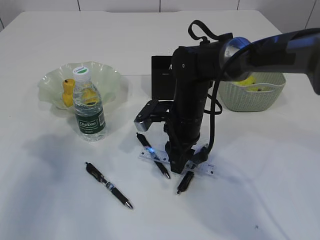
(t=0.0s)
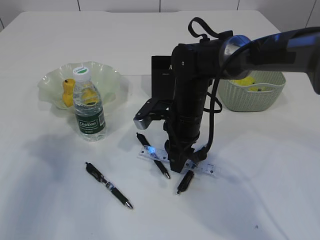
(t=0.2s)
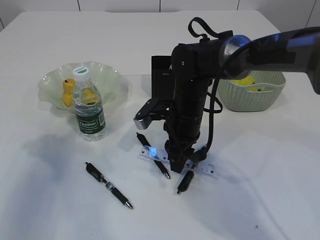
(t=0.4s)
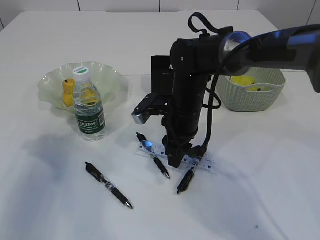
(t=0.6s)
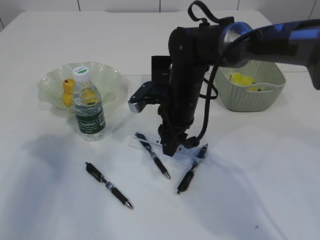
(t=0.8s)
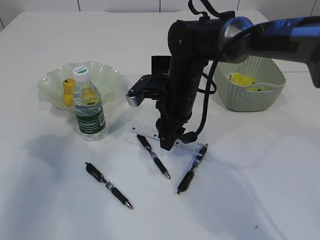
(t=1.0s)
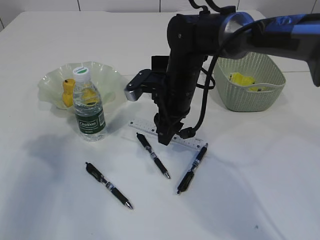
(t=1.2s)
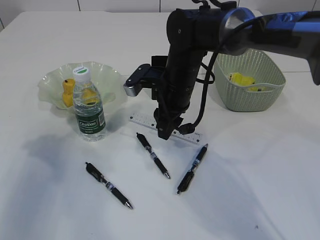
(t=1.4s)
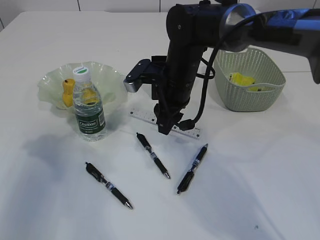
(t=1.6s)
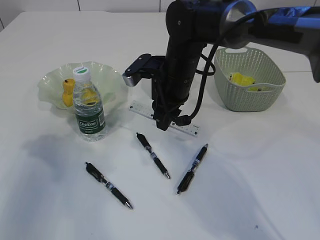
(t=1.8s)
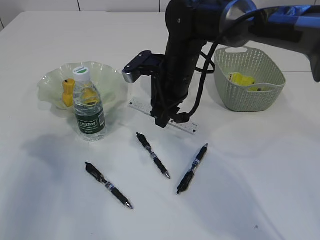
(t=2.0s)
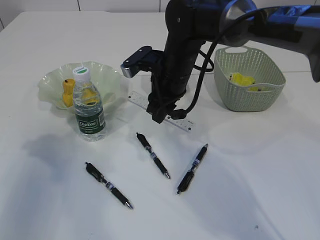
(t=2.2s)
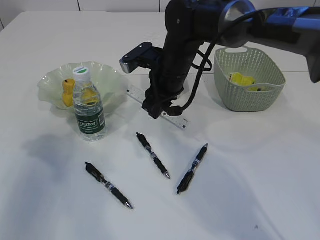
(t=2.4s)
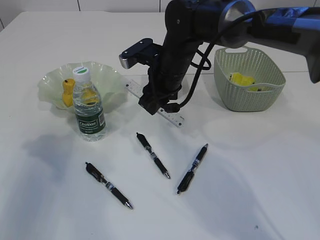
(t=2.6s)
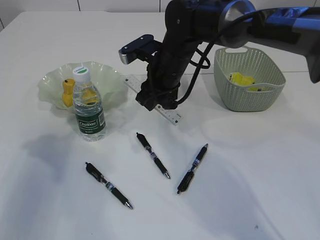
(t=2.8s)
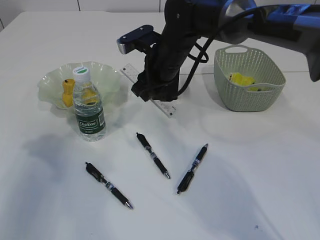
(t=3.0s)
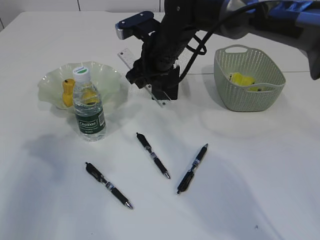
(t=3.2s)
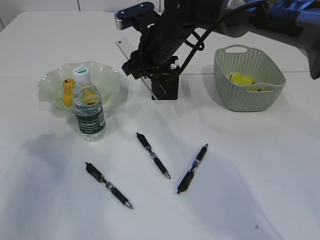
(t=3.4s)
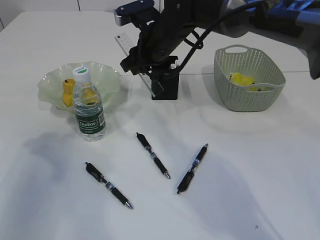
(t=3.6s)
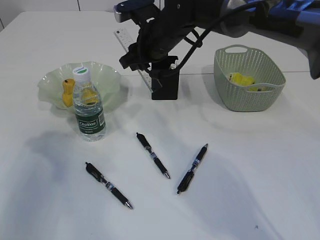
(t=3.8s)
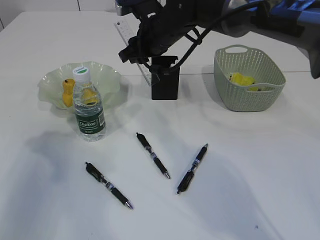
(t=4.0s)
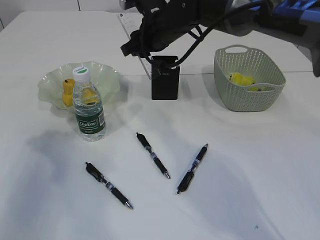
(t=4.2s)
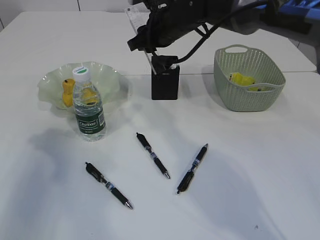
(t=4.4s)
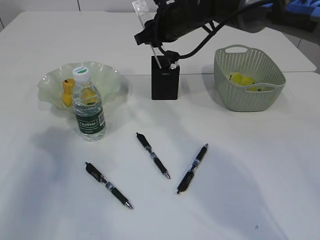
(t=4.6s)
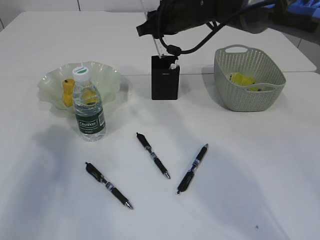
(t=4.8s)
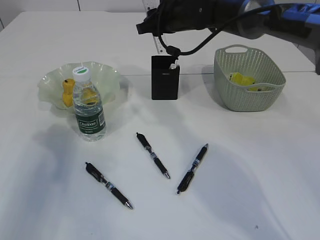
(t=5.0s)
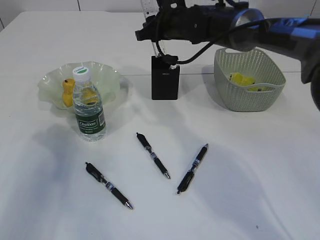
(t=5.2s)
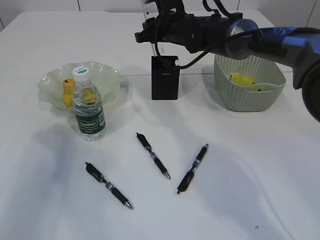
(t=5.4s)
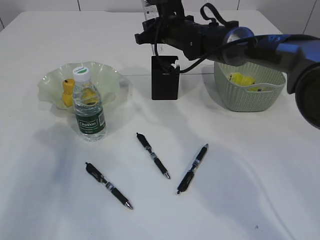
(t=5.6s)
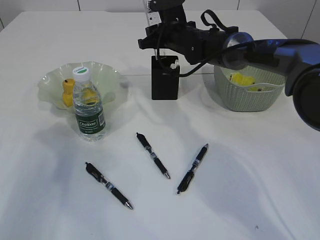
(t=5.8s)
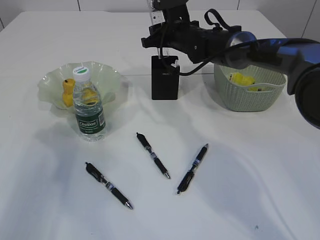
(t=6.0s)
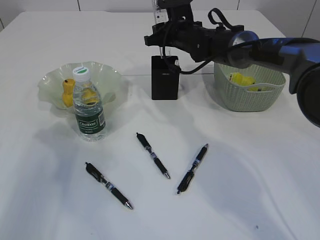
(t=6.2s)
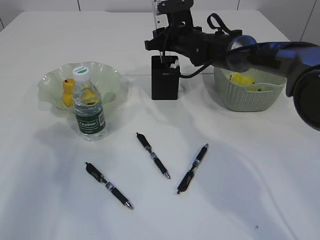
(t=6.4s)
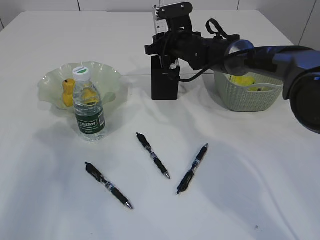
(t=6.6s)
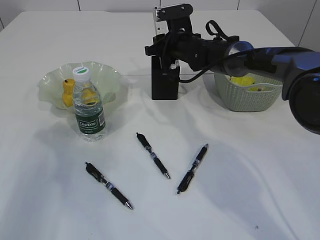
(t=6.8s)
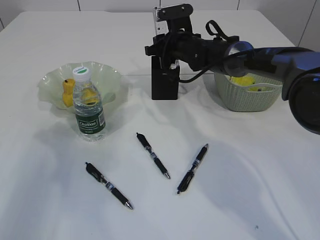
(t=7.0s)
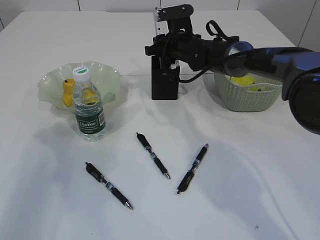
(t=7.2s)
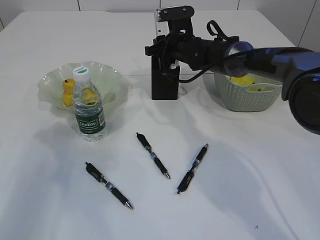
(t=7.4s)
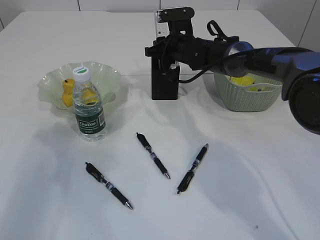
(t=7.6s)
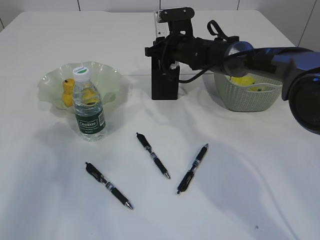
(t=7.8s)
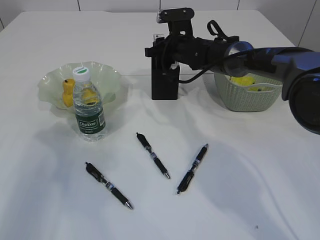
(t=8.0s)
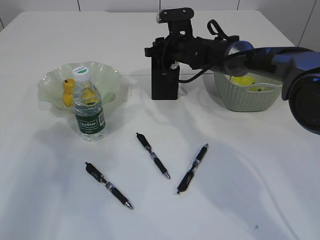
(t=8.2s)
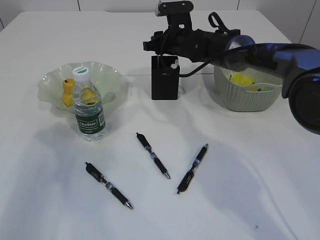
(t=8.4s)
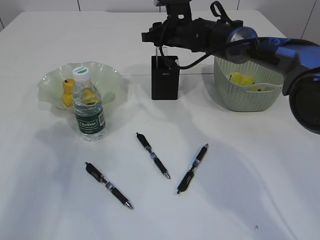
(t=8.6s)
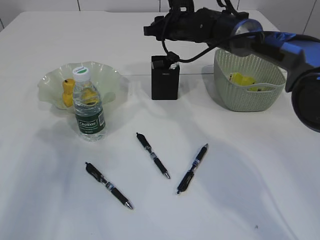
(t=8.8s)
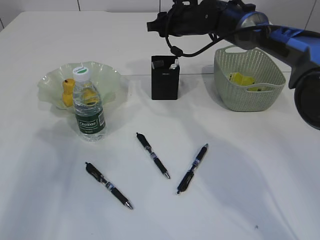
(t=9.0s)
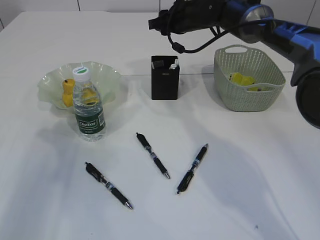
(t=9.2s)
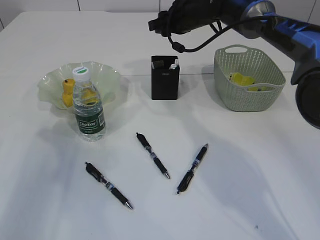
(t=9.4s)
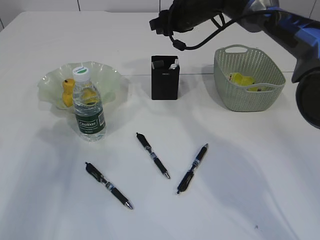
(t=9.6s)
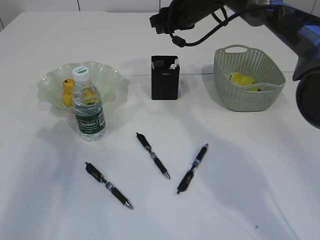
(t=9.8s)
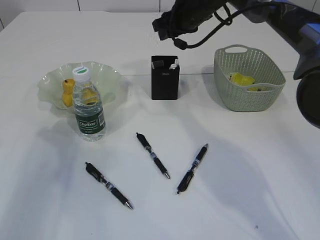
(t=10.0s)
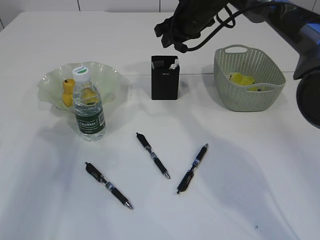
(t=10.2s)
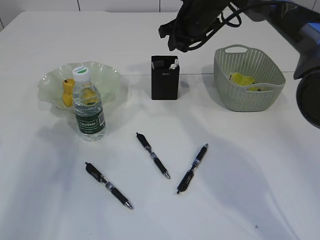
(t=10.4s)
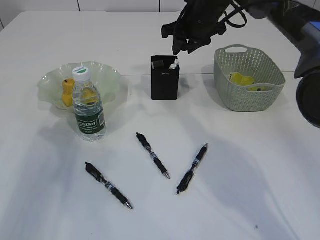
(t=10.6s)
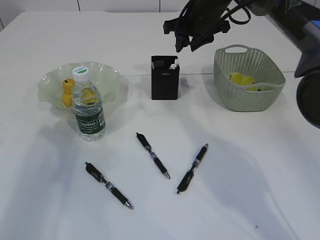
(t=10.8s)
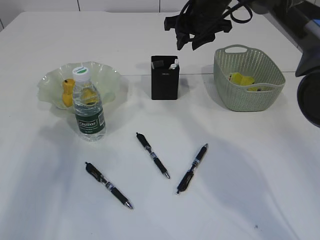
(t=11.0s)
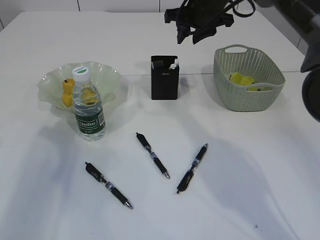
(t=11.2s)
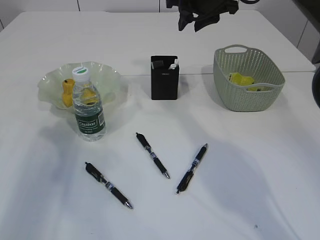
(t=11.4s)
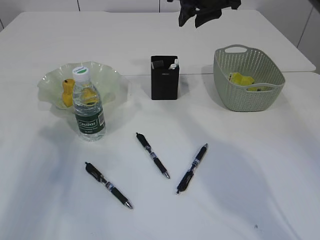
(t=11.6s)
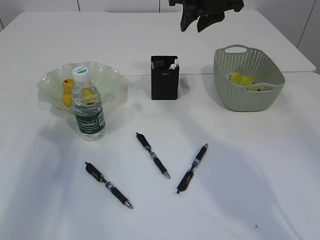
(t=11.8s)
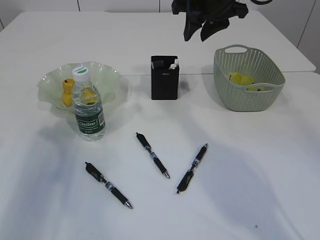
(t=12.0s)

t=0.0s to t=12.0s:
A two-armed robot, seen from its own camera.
Step, t=1.0s to t=8.6s: Place the ruler into the pen holder.
t=0.0s to t=1.6s: The right gripper travels upward by some 5 cm.
t=3.0s to t=4.4s: The right gripper changes place by roughly 5 cm.
t=4.4s to t=6.0s: The right gripper moves forward and downward, some 10 cm.
t=6.0s to t=7.6s: The grippers move only a little.
t=7.6s to t=9.0s: The right gripper shifts about 5 cm upward.
t=10.4s to t=12.0s: The right gripper is displaced upward and backward by approximately 10 cm.

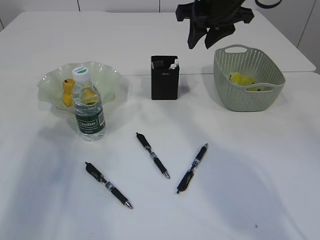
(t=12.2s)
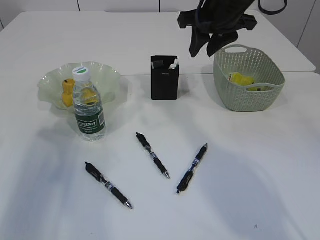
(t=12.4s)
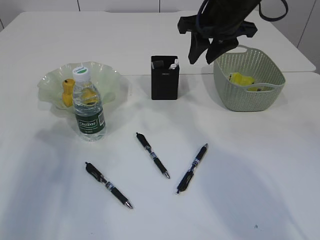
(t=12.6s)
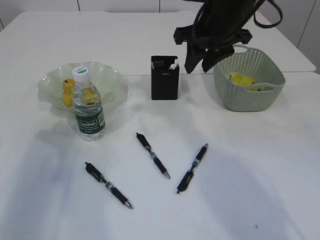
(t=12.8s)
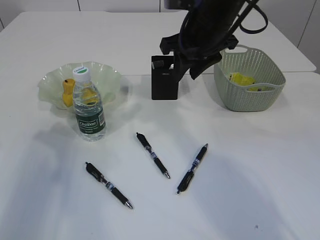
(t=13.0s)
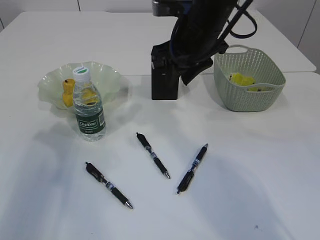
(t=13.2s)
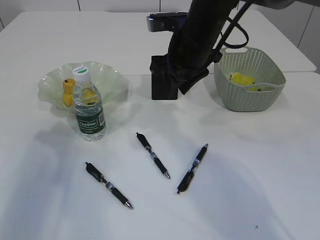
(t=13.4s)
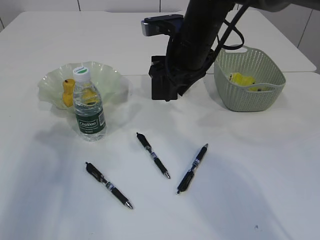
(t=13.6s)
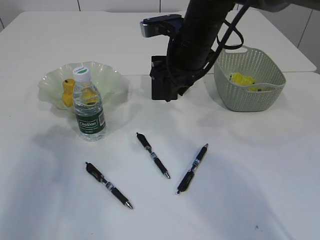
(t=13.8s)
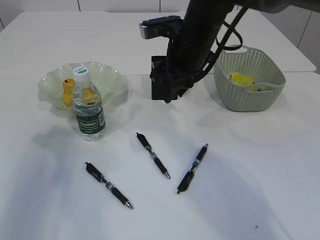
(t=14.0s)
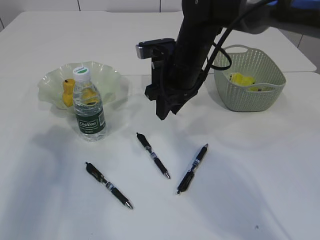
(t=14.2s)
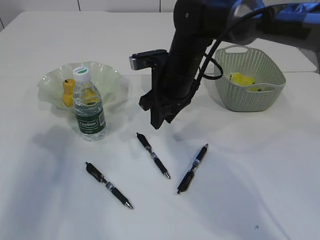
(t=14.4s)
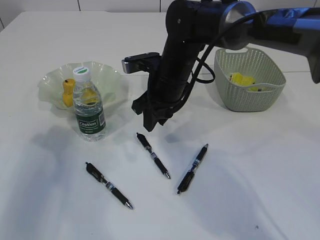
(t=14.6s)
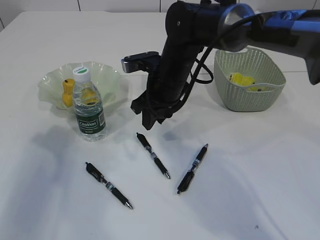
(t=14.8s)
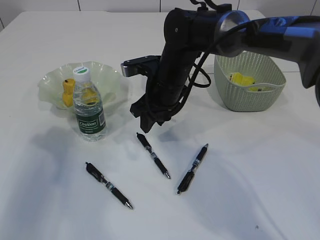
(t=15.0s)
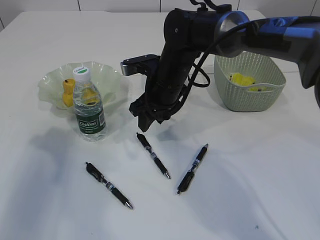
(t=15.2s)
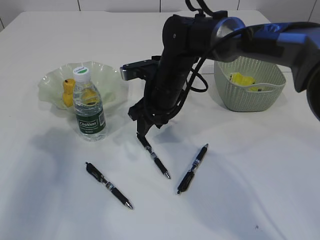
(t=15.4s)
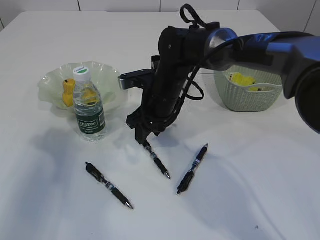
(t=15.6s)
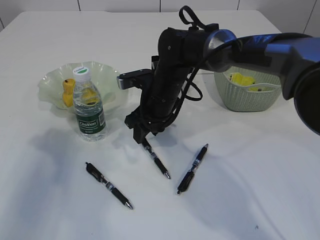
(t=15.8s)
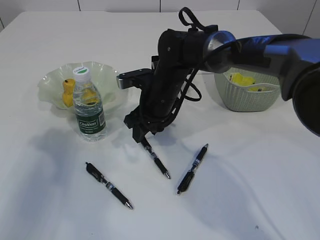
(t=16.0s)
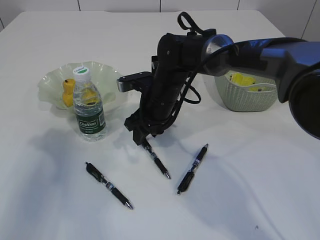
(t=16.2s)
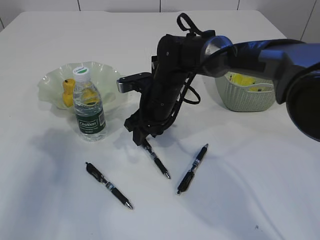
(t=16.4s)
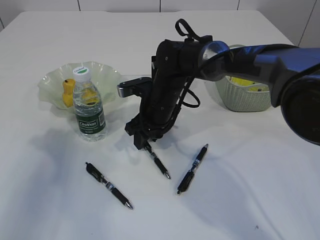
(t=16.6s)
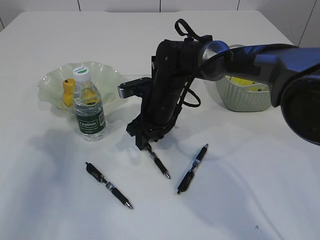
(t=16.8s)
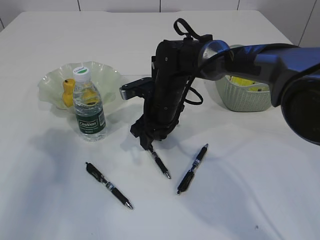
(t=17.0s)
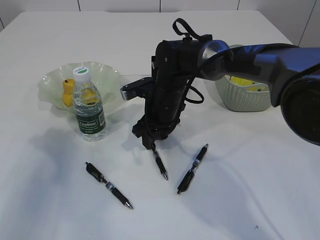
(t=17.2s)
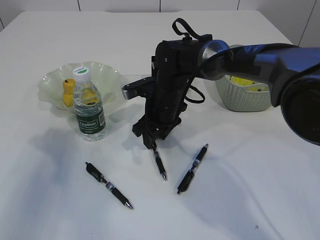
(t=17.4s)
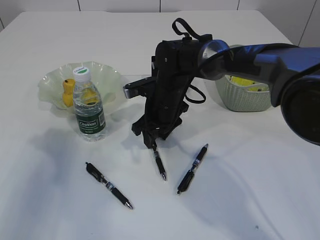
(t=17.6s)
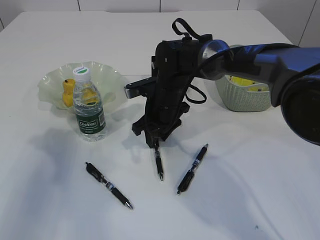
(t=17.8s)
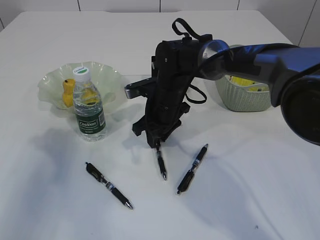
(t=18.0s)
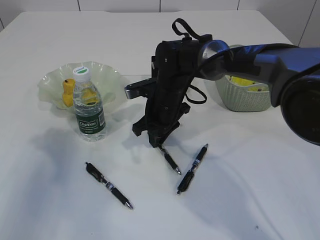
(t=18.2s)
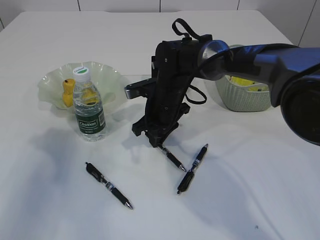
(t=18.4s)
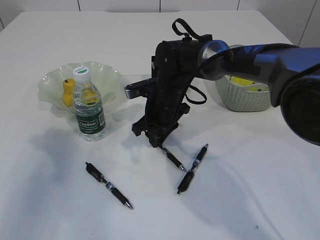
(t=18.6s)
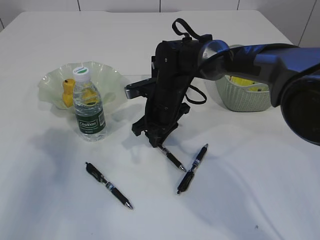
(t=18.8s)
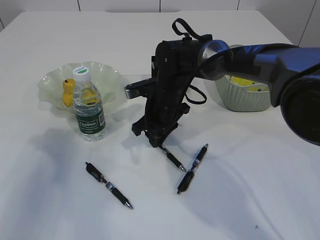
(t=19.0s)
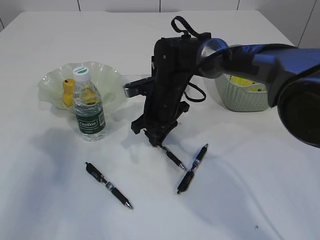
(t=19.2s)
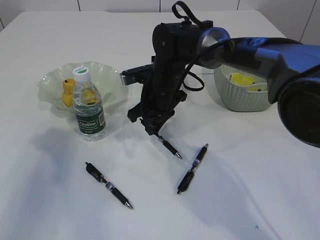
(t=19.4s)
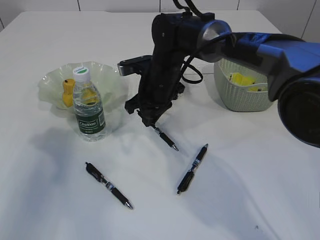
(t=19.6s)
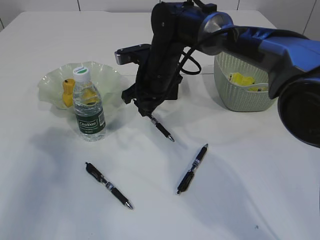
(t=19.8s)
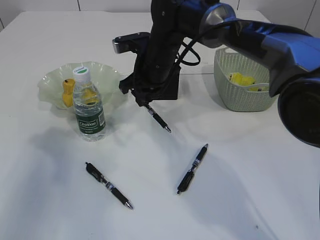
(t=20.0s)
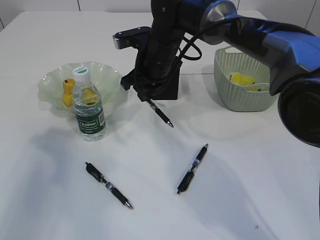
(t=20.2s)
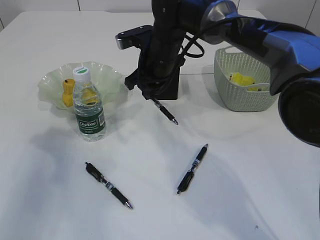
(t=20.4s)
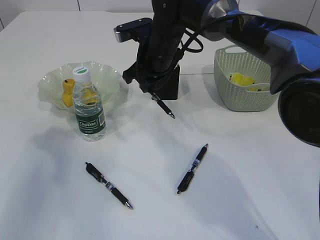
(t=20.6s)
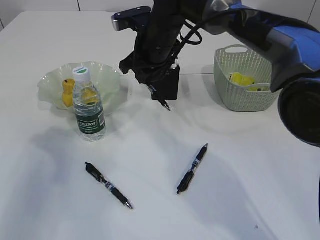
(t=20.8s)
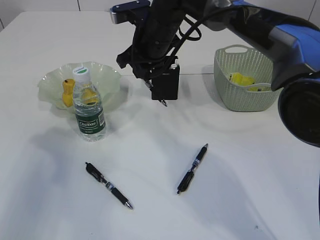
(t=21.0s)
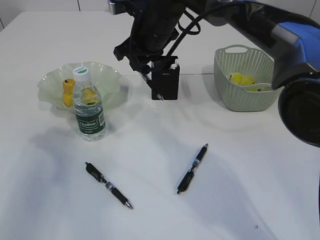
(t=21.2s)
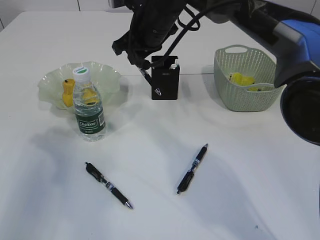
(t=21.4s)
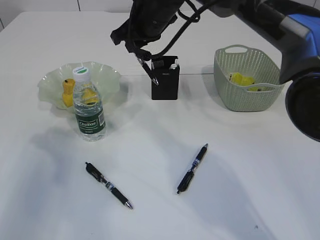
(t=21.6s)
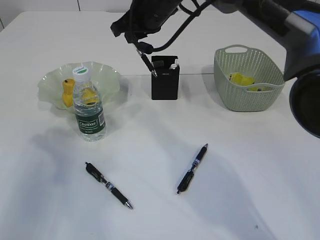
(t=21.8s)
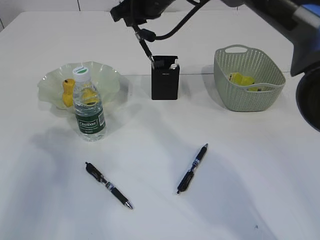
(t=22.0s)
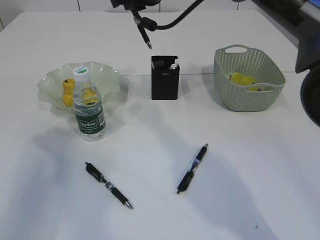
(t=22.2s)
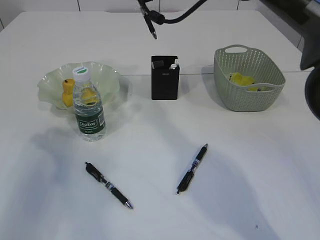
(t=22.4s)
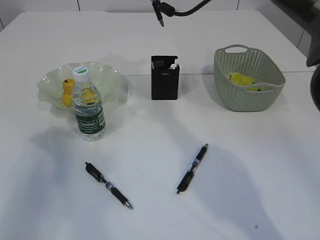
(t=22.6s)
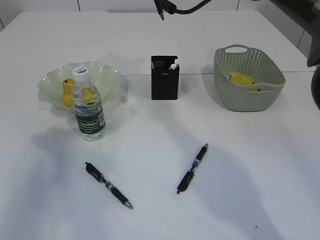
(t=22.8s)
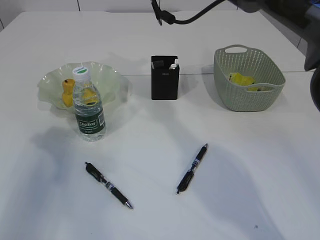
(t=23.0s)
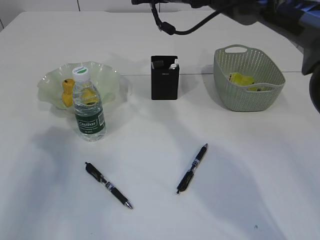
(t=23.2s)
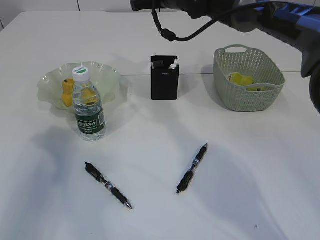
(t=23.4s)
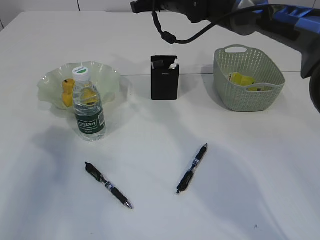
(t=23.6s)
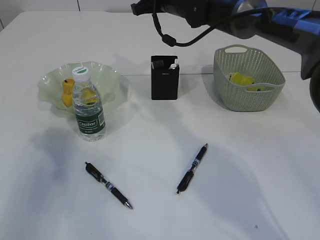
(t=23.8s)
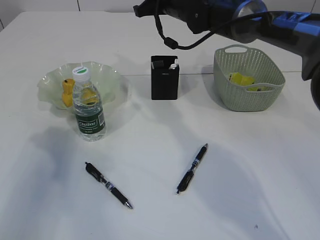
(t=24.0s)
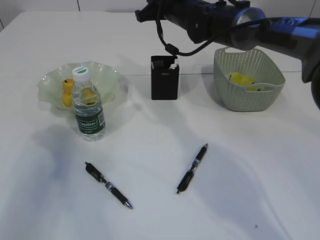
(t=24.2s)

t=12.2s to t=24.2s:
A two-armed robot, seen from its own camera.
Step, t=12.2s to t=19.4s: Pick up the pen with right arm.
t=12.2s to t=13.8s: The right gripper travels to the left and downward by roughly 10 cm.
t=13.8s to t=15.2s: The right gripper is displaced downward by approximately 10 cm.
t=15.2s to t=16.6s: The right gripper goes approximately 5 cm downward.
t=16.6s to t=18.2s: The right gripper closes.
t=18.2s to t=19.8s: The right gripper moves upward, roughly 5 cm.
t=19.8s to t=21.2s: The right gripper goes approximately 10 cm upward.
t=21.2s to t=22.6s: The right gripper shifts some 10 cm upward.
t=22.6s to t=24.2s: The right gripper heads downward, covering approximately 10 cm.
